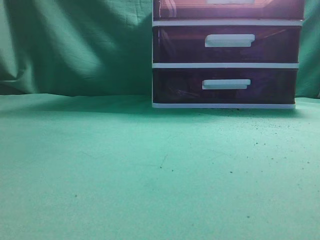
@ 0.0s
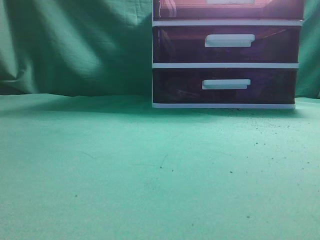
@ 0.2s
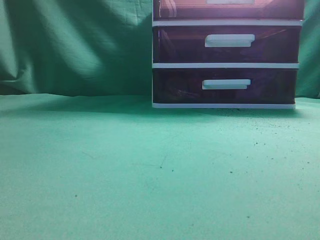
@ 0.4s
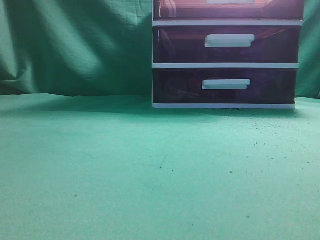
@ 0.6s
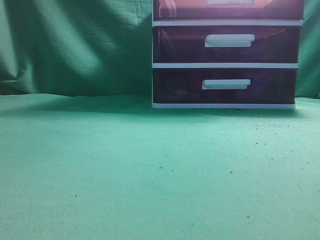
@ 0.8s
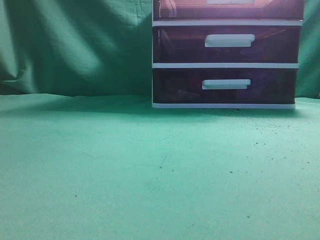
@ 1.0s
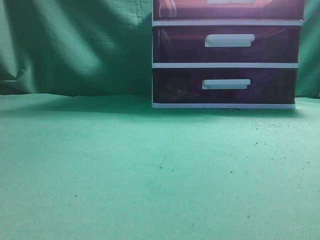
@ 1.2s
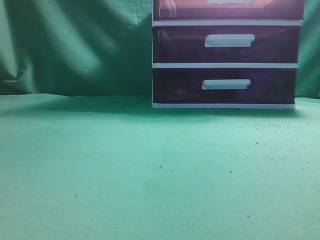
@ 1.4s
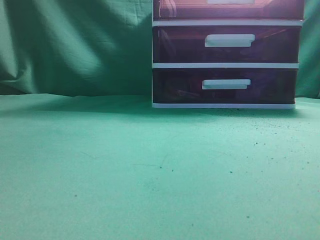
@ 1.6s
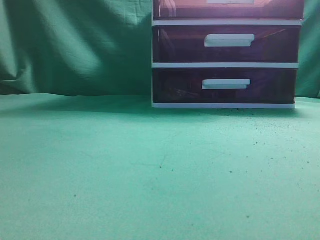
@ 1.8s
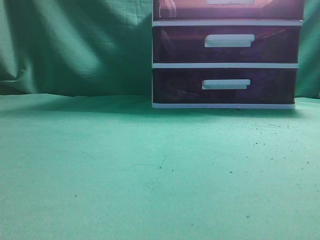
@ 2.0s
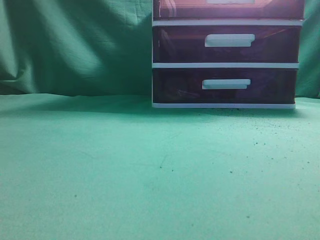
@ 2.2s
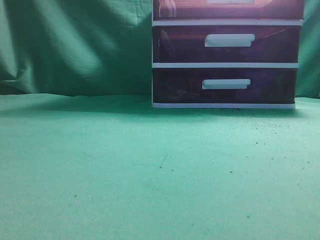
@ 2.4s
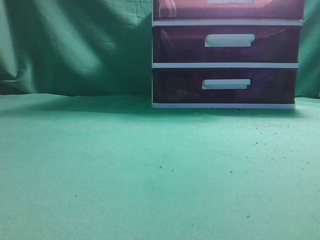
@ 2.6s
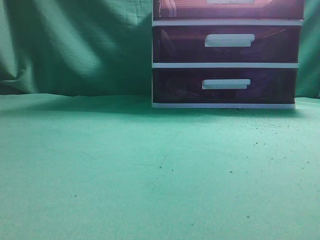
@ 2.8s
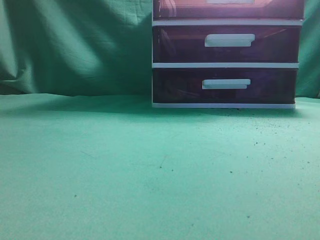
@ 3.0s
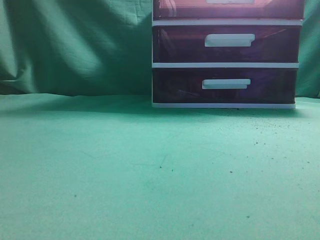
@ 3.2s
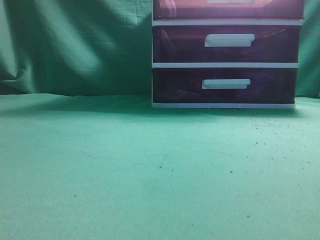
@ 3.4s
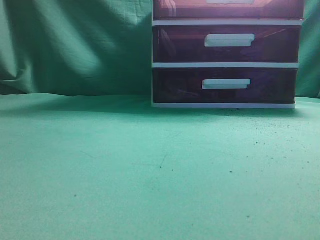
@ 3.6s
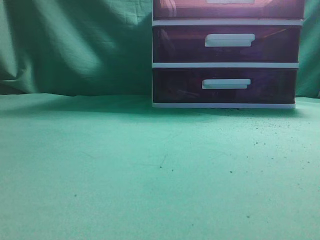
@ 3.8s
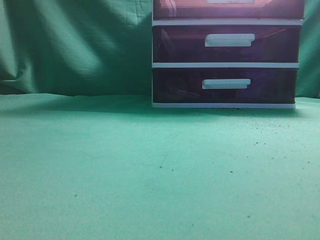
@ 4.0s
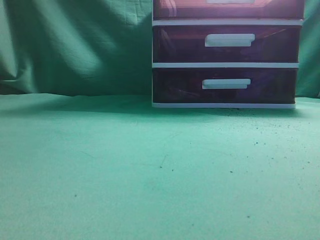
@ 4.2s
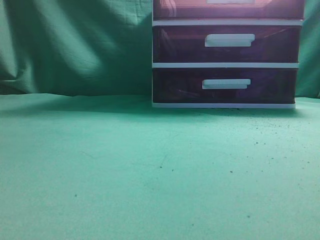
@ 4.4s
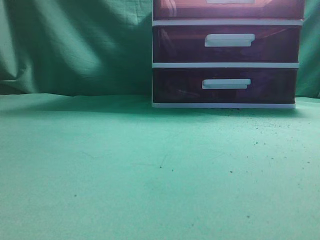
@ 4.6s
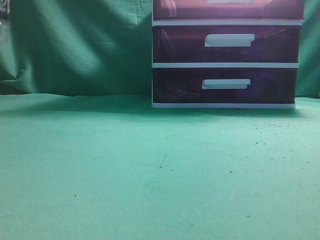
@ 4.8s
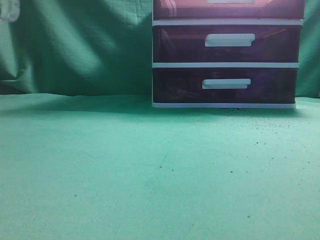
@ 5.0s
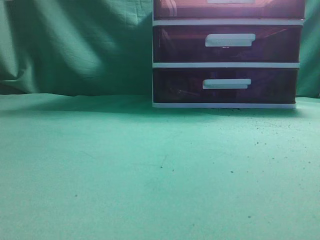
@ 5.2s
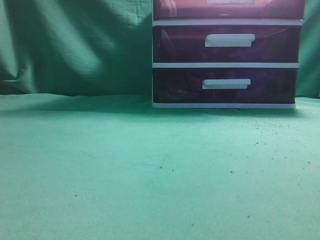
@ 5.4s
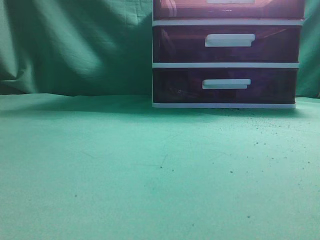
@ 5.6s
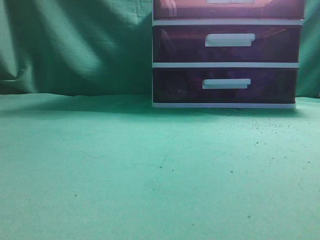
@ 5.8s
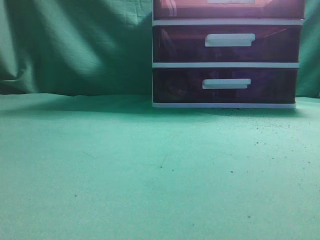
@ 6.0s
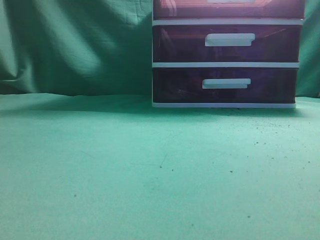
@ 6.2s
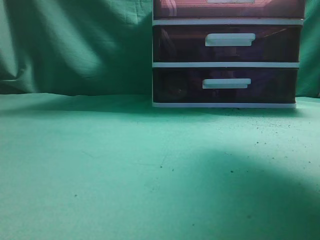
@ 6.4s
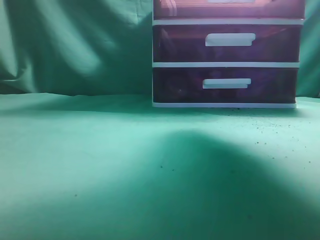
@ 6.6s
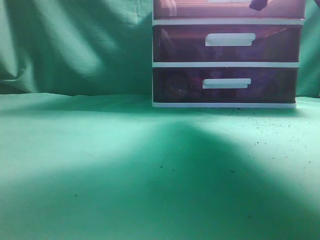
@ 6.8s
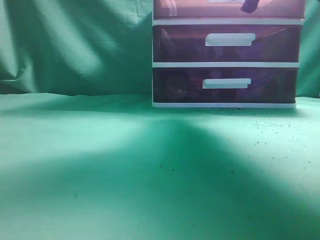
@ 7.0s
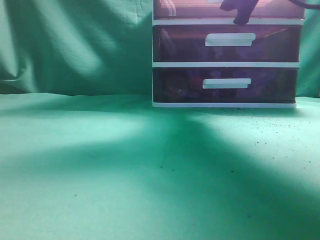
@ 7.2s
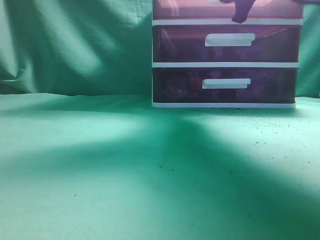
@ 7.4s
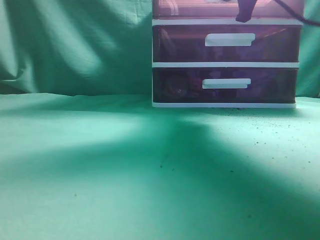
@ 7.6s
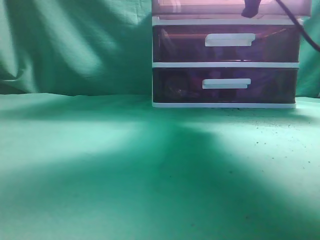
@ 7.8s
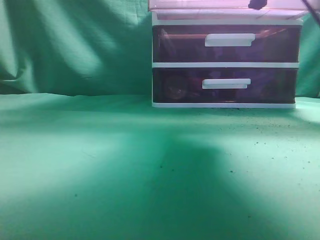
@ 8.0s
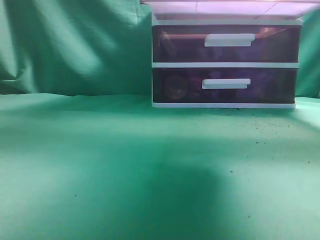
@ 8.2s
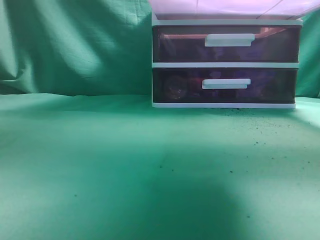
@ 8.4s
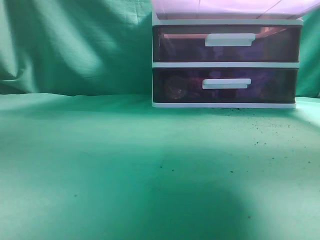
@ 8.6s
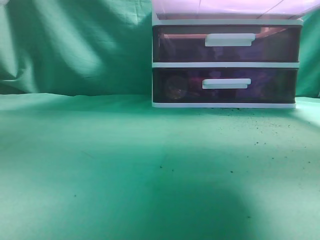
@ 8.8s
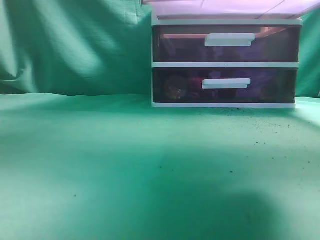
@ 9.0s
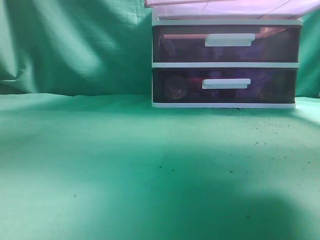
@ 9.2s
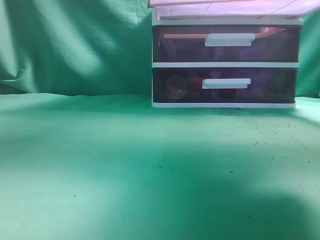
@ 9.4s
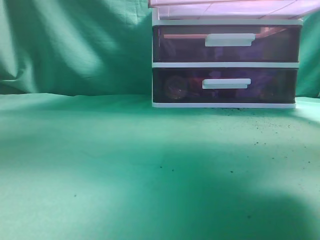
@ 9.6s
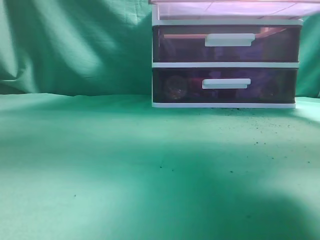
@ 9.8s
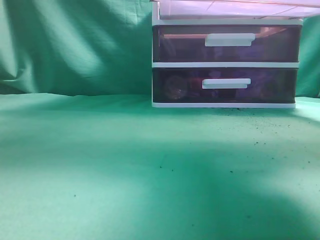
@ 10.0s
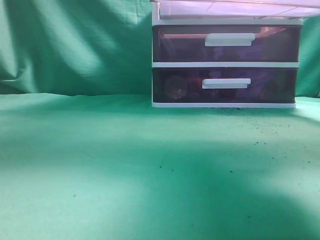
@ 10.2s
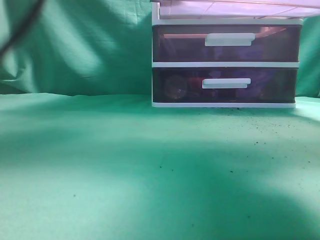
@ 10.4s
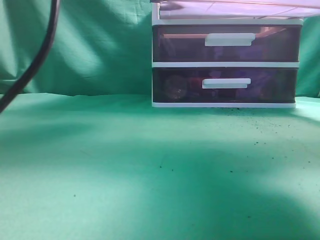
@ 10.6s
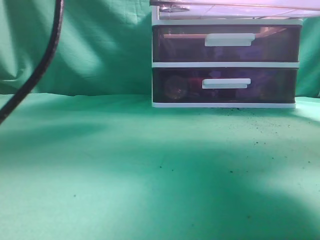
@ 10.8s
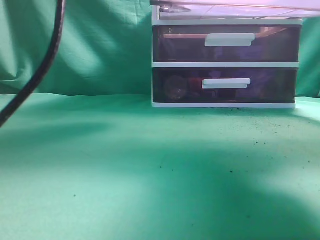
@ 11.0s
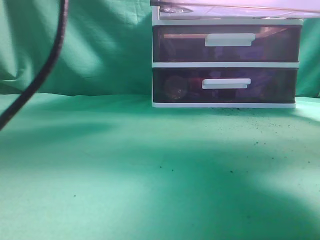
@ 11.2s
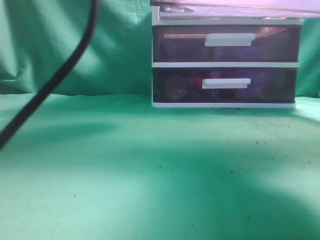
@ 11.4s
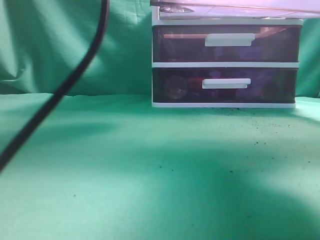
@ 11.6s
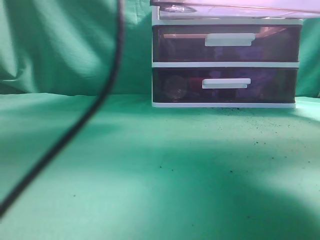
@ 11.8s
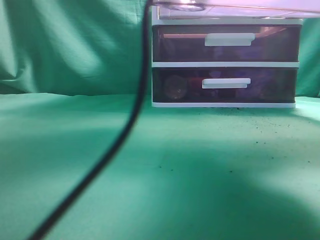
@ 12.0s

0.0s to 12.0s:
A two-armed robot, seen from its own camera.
Task of the whole recording: place the water bottle into the drawer.
Step, 0.0s to 9.0s: Open the drawer.
6.0s to 7.6s: The right gripper travels forward and to the left by about 25 cm.
7.6s to 9.0s: The right gripper moves backward, approximately 15 cm.
9.0s to 10.4s: The left gripper travels to the right and forward by about 25 cm.
10.4s to 12.0s: The left gripper heads to the right and downward, covering some 10 cm, and opens.

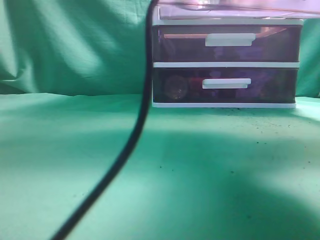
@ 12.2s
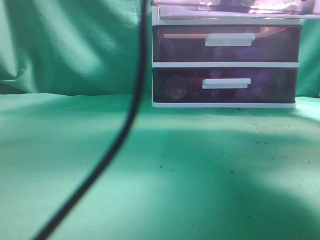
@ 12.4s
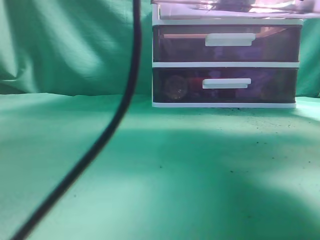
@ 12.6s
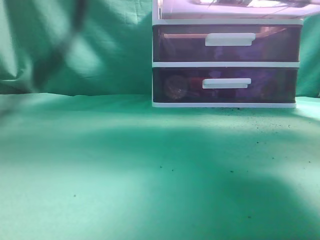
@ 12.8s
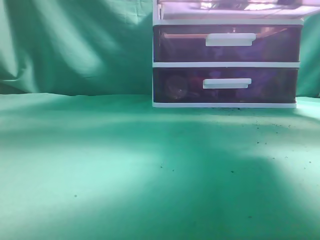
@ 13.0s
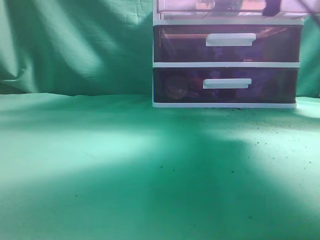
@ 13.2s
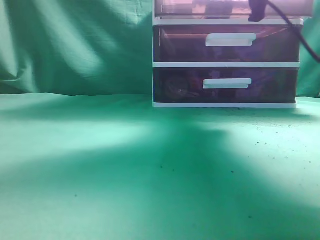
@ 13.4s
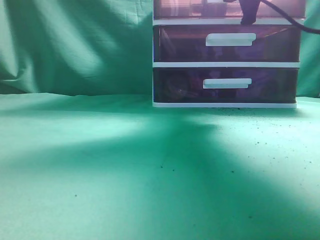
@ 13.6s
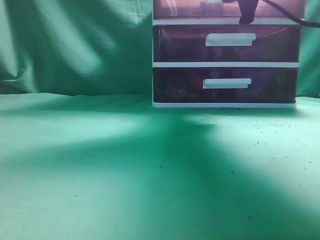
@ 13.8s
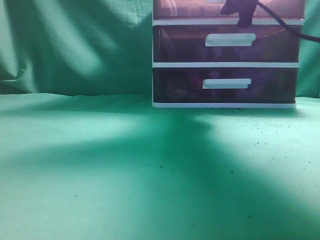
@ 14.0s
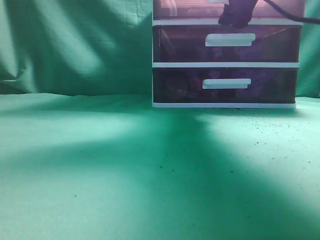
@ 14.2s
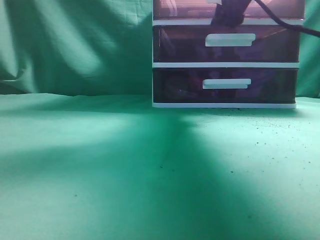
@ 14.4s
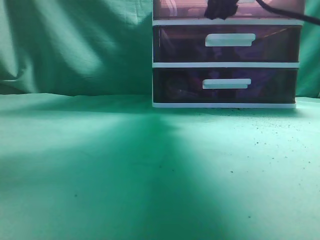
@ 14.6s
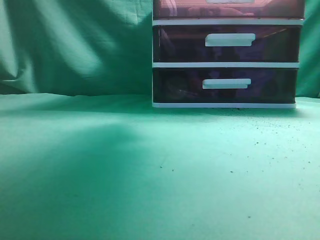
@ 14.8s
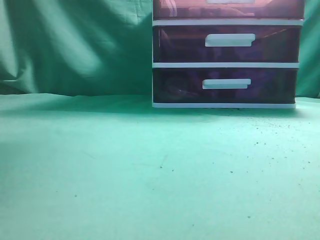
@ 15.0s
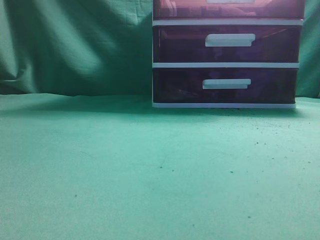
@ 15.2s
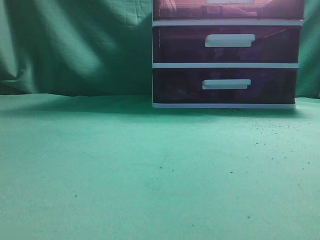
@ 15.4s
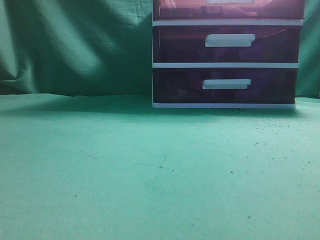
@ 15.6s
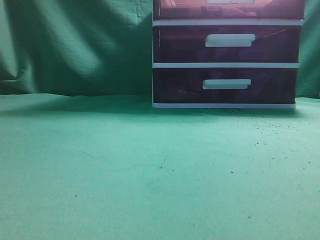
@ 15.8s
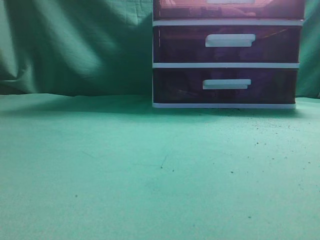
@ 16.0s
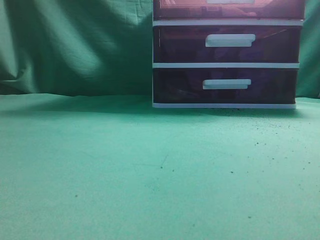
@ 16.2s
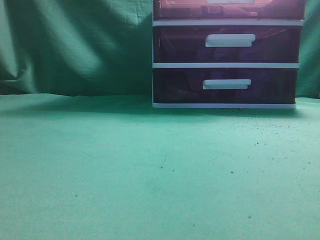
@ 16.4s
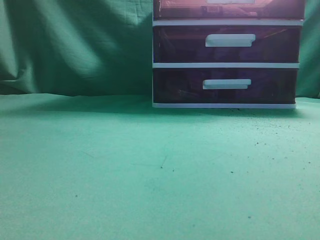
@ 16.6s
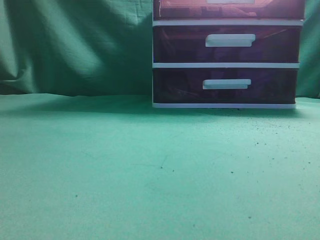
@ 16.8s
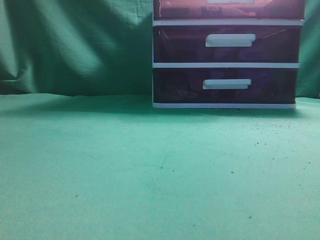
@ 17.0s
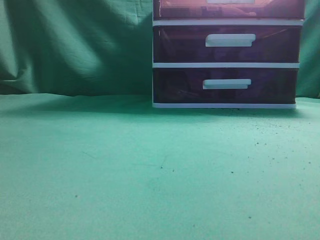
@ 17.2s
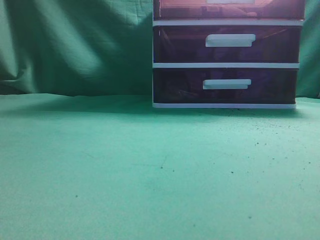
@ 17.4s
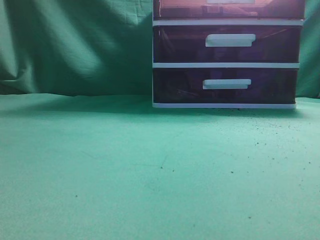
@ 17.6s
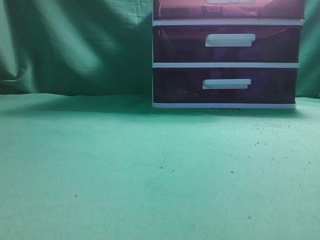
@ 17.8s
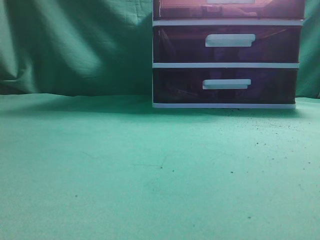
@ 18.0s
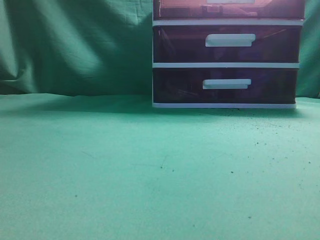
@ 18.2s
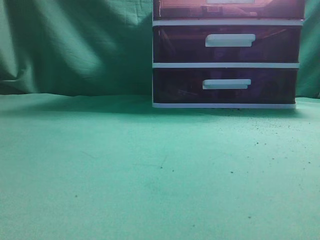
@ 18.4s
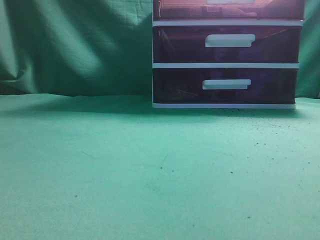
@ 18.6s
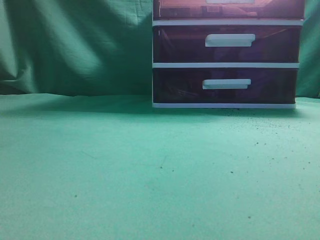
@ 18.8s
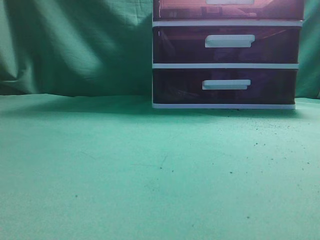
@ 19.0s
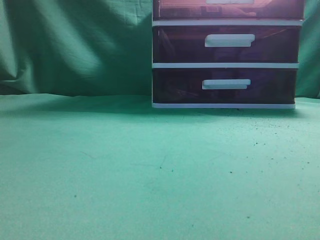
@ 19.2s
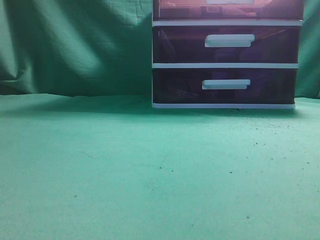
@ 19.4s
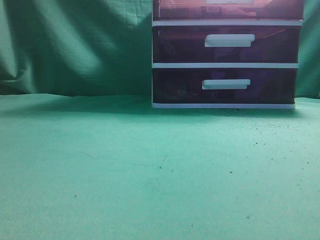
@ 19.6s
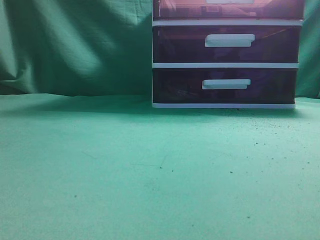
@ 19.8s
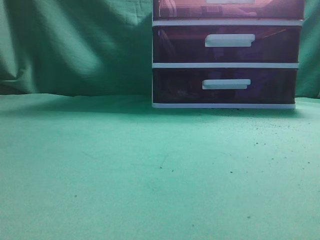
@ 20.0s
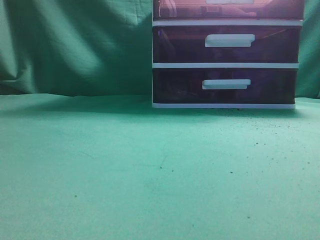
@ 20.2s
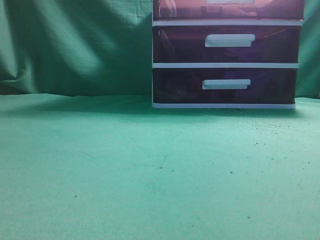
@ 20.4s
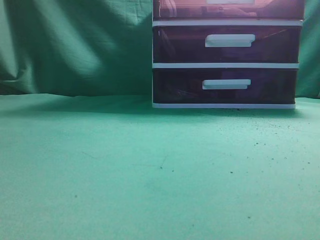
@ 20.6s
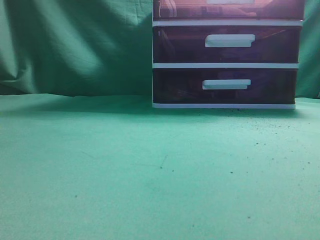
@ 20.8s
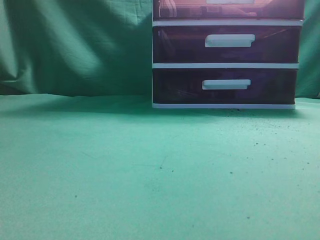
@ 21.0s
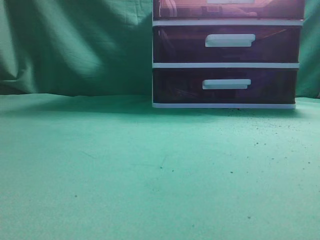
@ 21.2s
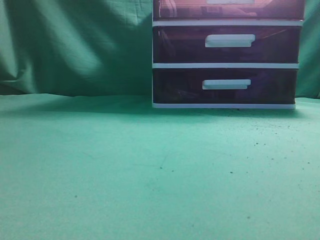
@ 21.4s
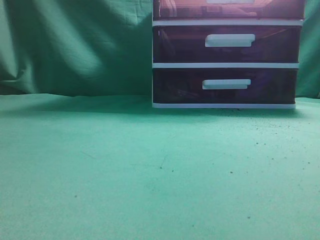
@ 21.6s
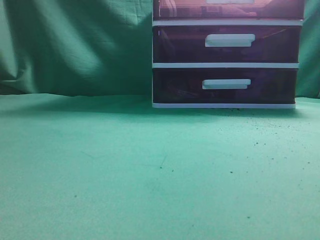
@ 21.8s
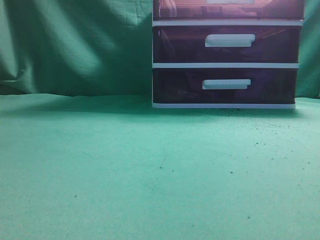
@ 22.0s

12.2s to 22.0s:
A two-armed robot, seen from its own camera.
Task of the whole recording: place the water bottle into the drawer.
Step, 13.0s to 14.8s: Close the drawer.
12.2s to 13.6s: The right gripper heads forward, covering approximately 15 cm; the left gripper shifts approximately 30 cm to the left, backward and upward, and closes.
13.6s to 15.0s: The right gripper heads upward, backward and to the left, covering approximately 10 cm, and opens up.
15.0s to 16.4s: The left gripper moves downward, backward and to the left, about 30 cm, while the right gripper goes about 20 cm backward, and closes its fingers.
